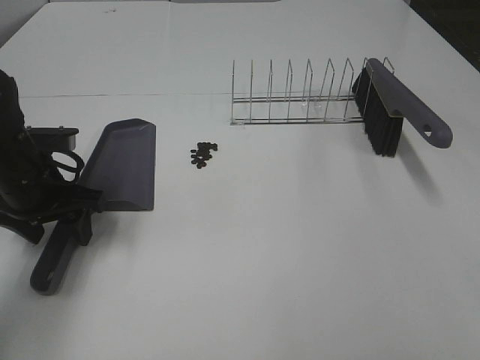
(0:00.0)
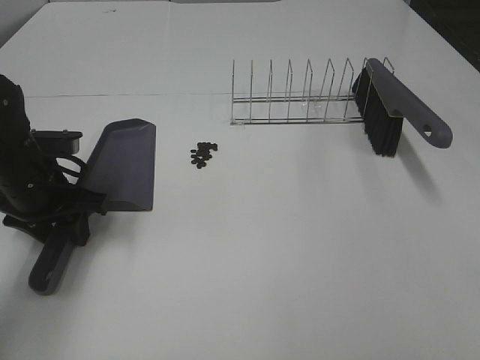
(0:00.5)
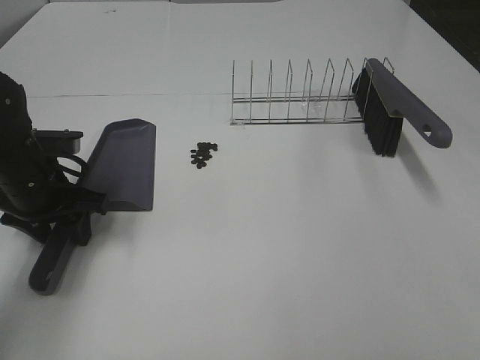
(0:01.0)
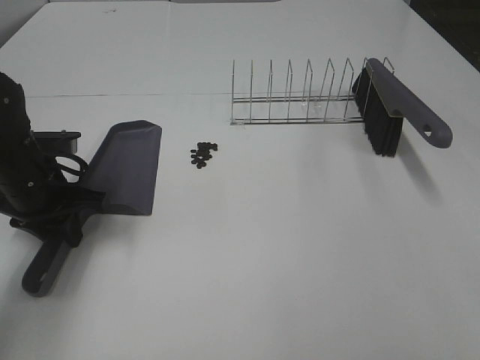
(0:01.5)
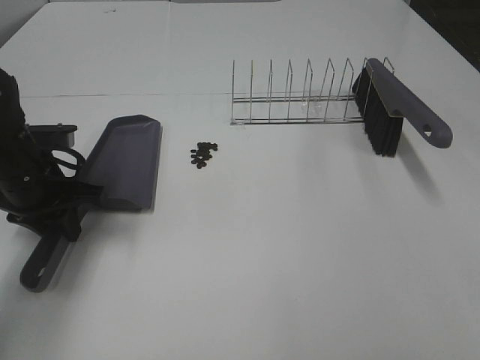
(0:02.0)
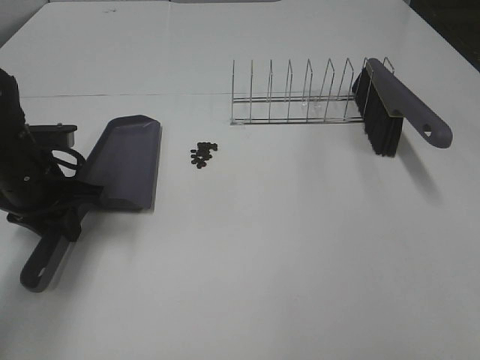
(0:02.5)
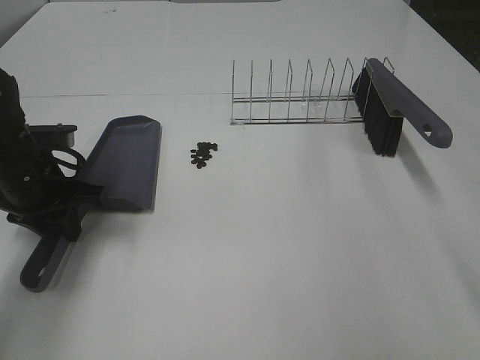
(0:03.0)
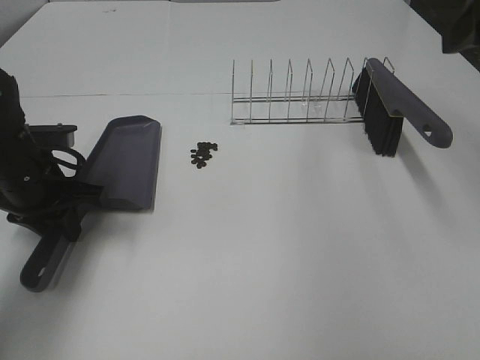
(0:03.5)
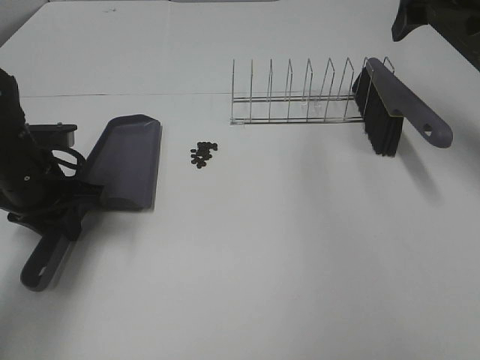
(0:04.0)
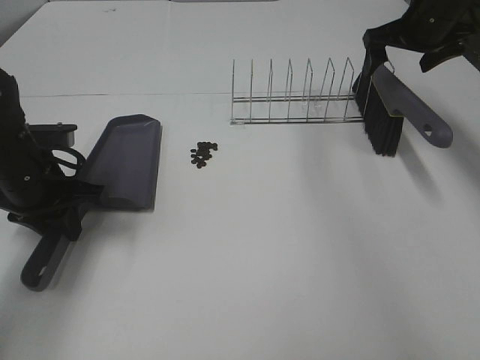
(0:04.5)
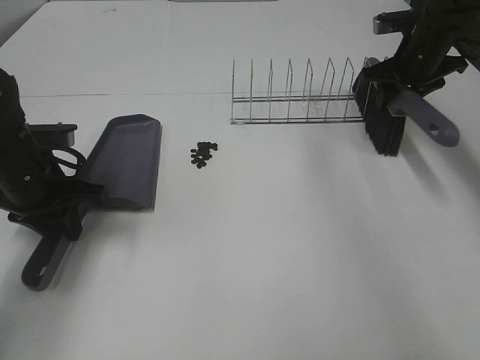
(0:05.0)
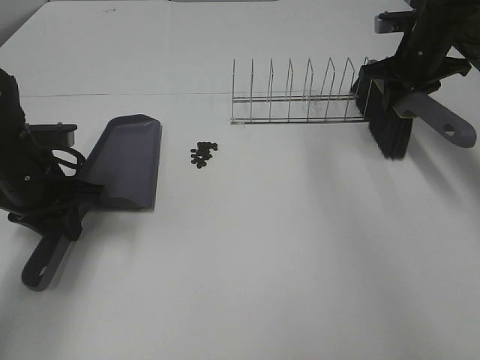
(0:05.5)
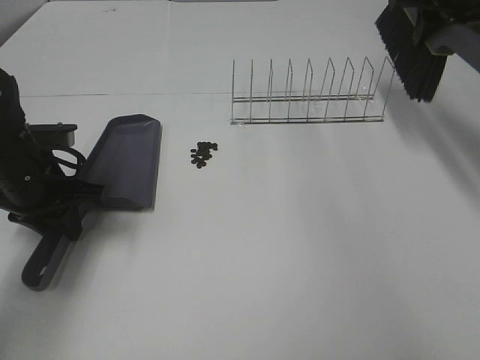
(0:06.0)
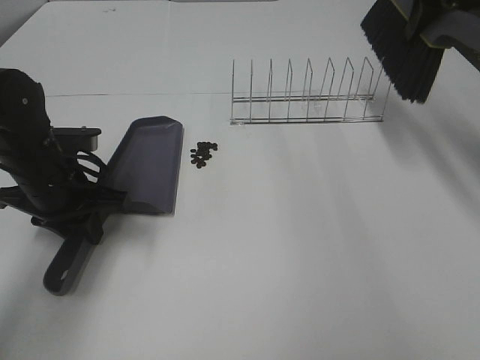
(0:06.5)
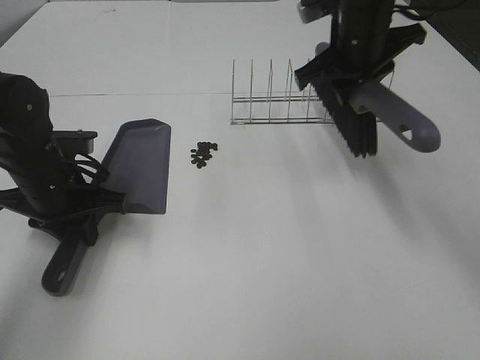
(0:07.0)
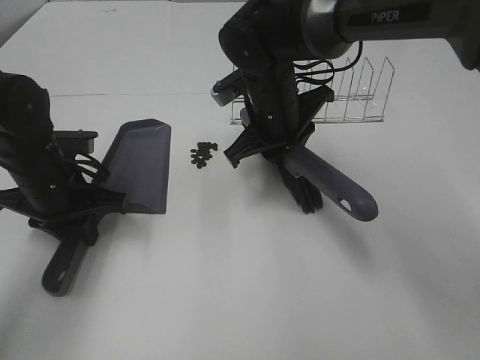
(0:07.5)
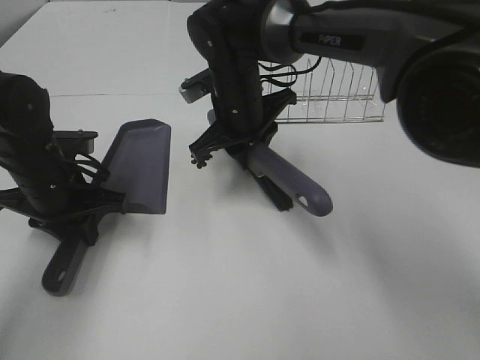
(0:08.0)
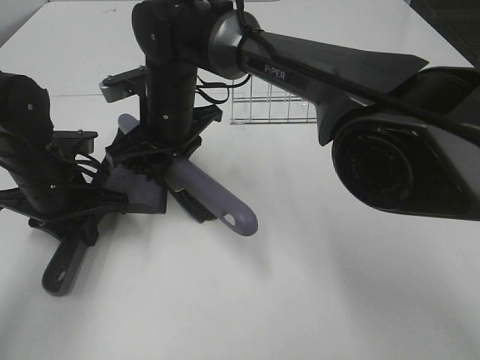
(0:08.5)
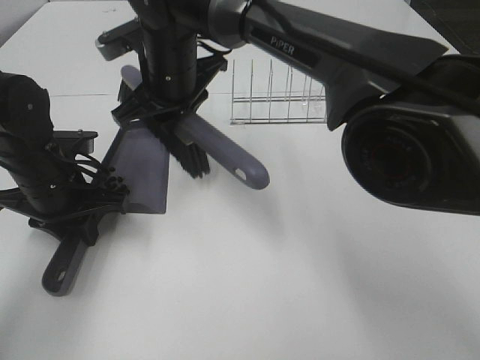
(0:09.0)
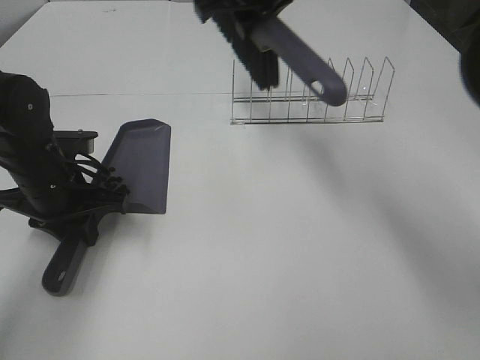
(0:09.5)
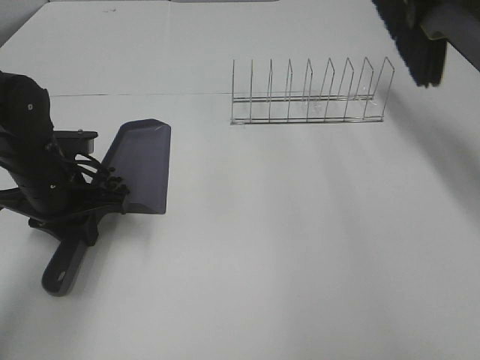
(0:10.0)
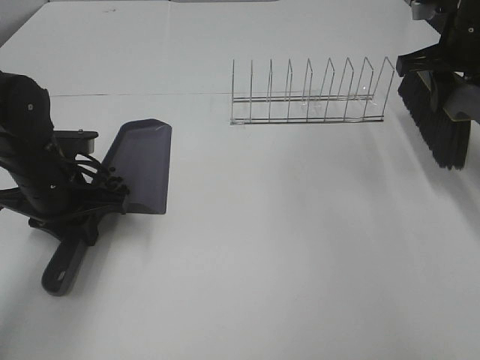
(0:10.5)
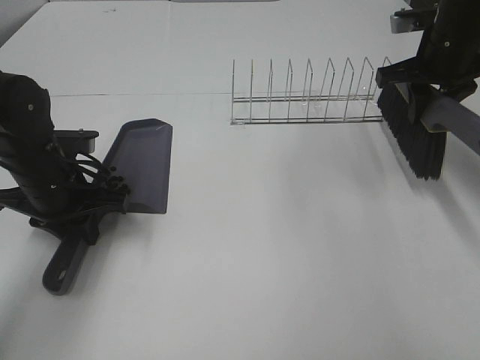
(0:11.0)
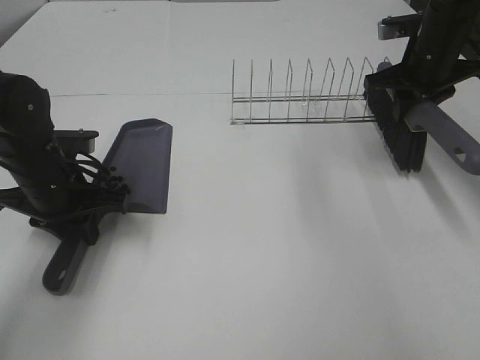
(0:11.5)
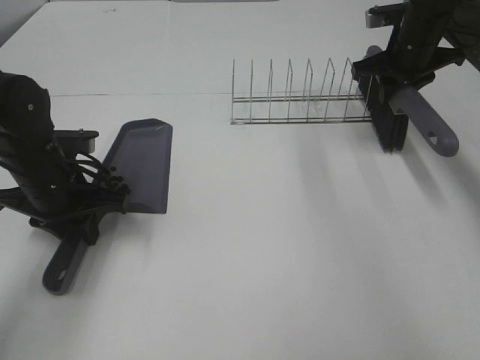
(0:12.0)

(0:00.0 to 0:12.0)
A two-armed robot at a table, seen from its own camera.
Task of the whole recording: Sweep Coffee Bean.
Step, 0:02.0 - 0:05.0: Right hand:grab the broom.
Step, 0:05.5 - 0:08.5: Right hand:sweep the coffee beans into the dustpan.
0:00.0 - 0:02.0: The left gripper closes up.
0:02.0 - 0:04.0: The right gripper travels forward by approximately 40 cm.
0:04.0 - 0:06.0: The right gripper shifts roughly 5 cm forward, reaches approximately 15 cm downward, then returns, and closes.
0:06.0 - 0:08.0: The right gripper heads to the left and downward, covering some 30 cm.
0:08.0 - 0:10.0: The right gripper moves to the right and upward, approximately 30 cm.
0:10.0 - 0:12.0: The right gripper is displaced downward and forward by about 15 cm.

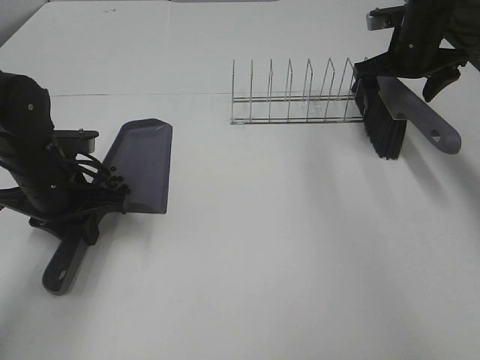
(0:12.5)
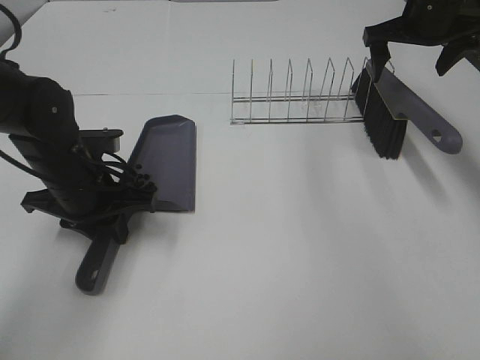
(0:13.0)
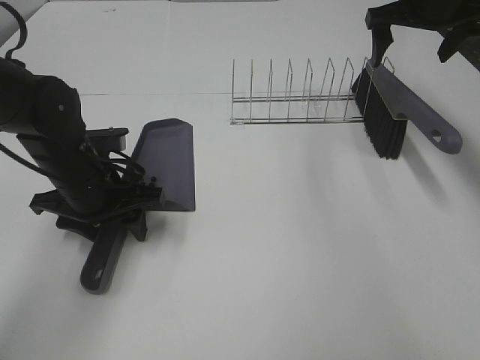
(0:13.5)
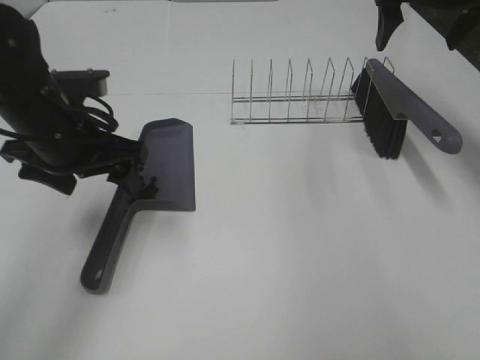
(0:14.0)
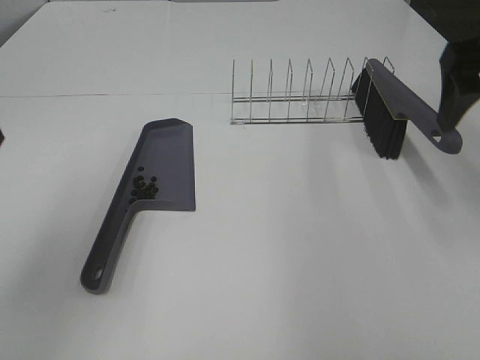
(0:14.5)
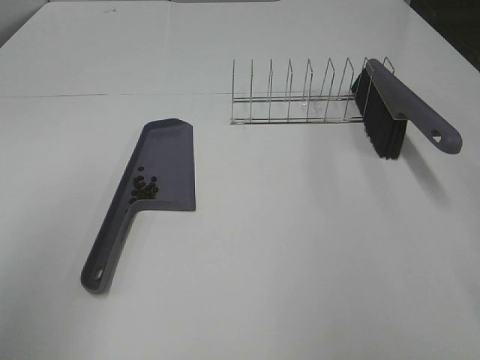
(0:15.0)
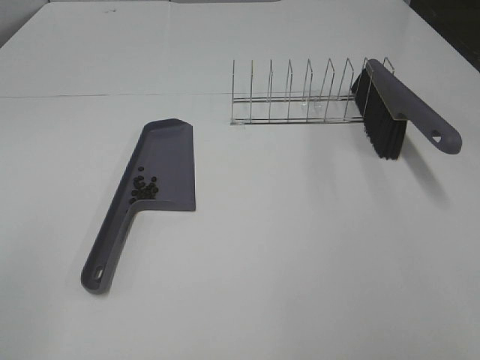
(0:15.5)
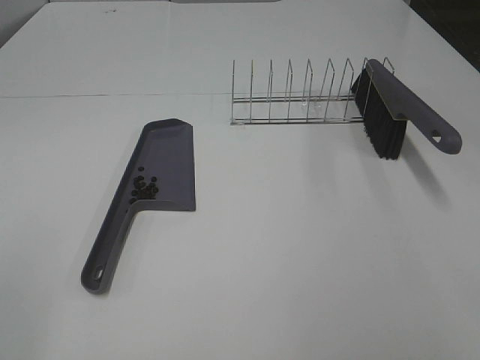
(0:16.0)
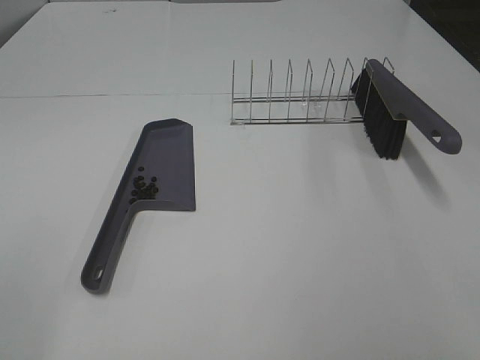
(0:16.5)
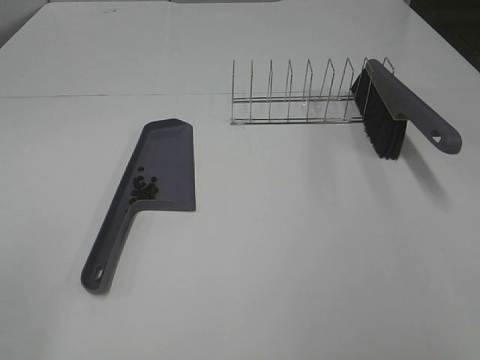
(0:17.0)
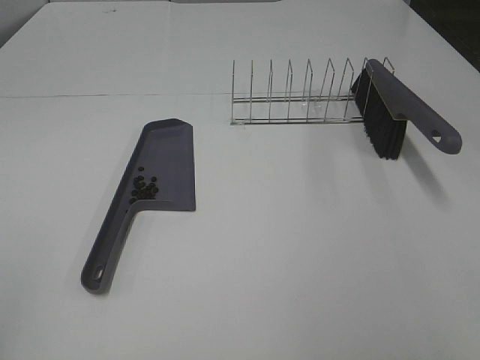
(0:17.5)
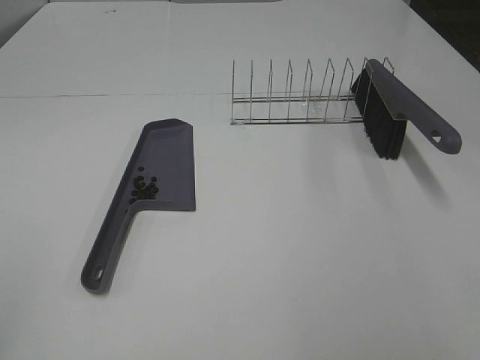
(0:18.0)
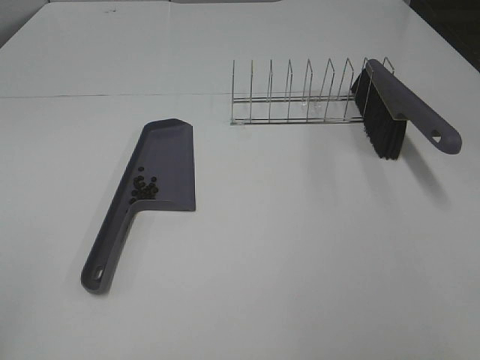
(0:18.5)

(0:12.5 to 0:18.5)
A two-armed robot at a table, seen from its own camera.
Task of the whole recording: Sweep Coffee Bean.
Step, 0:13.0 - 0:13.5: Left hand:place the dustpan on the table.
0:12.5 - 0:14.5: The left gripper moves upward and backward, approximately 25 cm, and opens up; the right gripper travels backward and upward by some 25 cm.
0:14.5 - 0:16.5: The right gripper shifts about 30 cm backward; the left gripper shifts about 20 cm backward and to the left.
